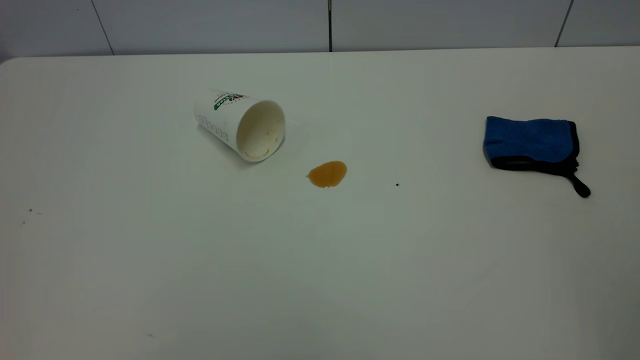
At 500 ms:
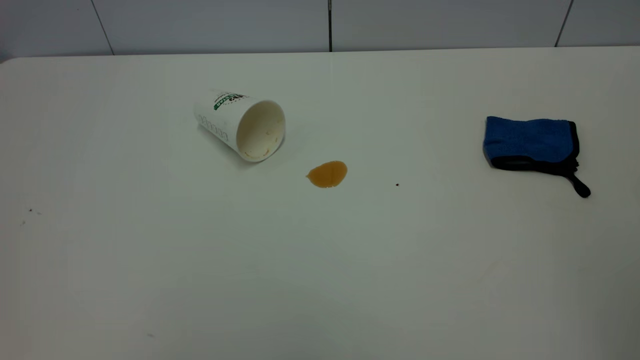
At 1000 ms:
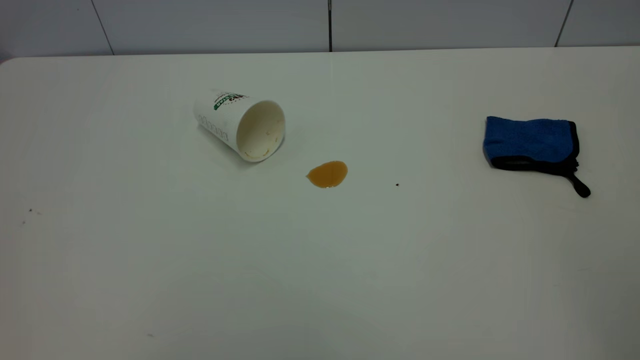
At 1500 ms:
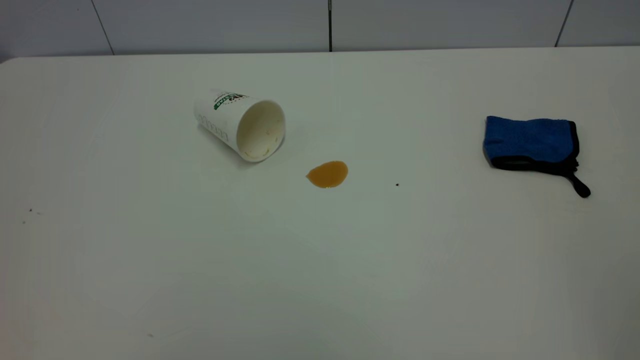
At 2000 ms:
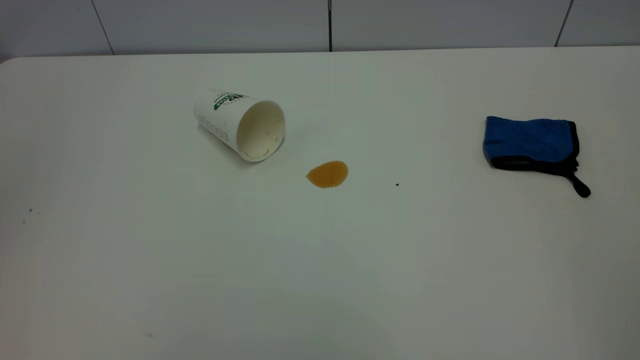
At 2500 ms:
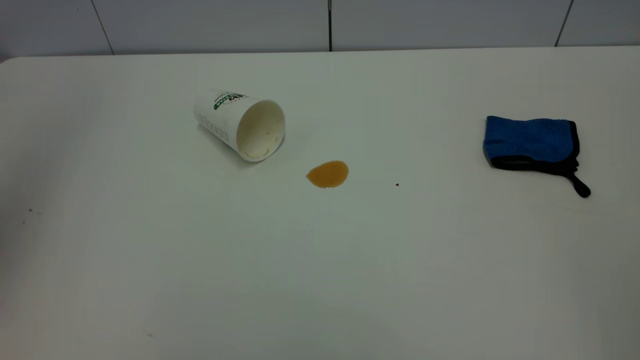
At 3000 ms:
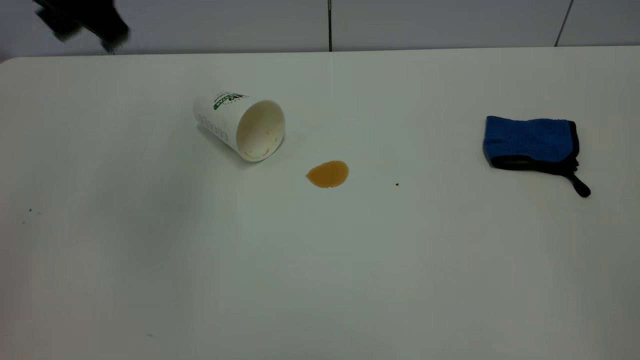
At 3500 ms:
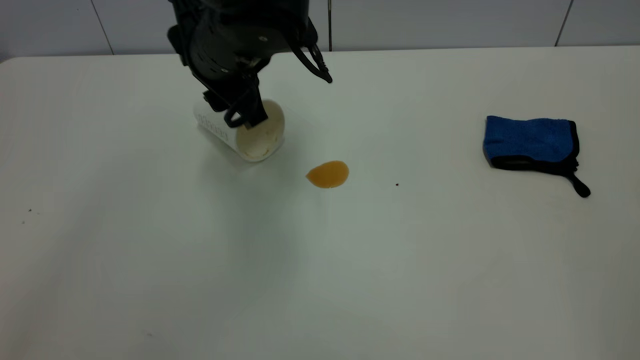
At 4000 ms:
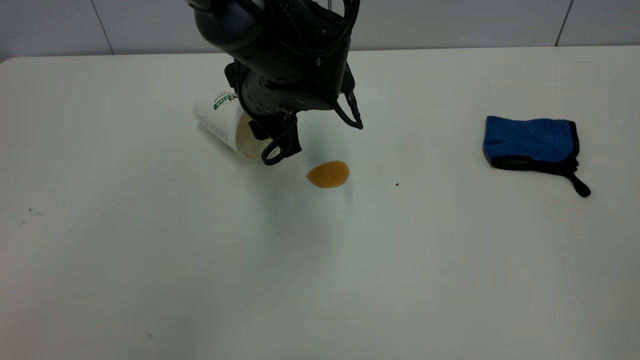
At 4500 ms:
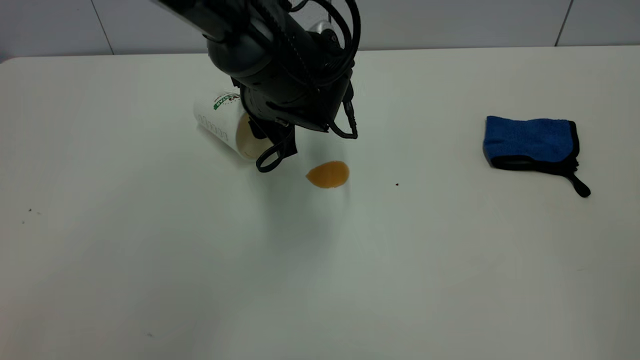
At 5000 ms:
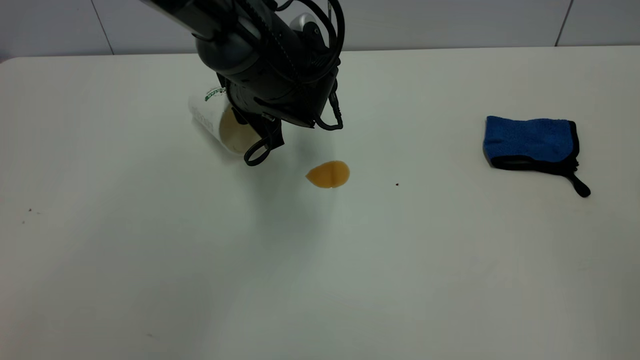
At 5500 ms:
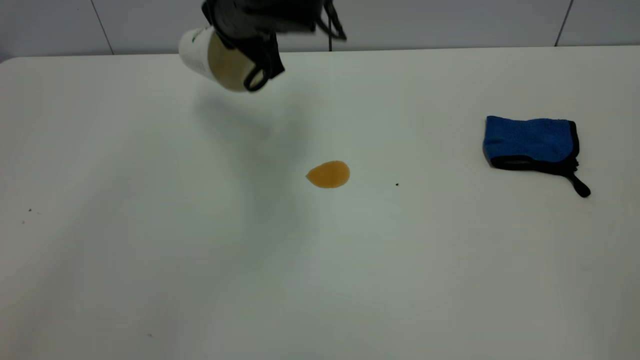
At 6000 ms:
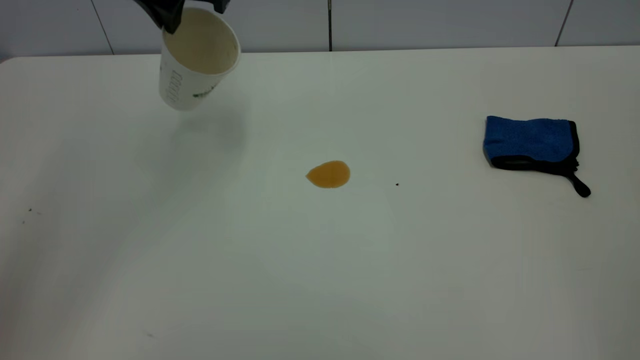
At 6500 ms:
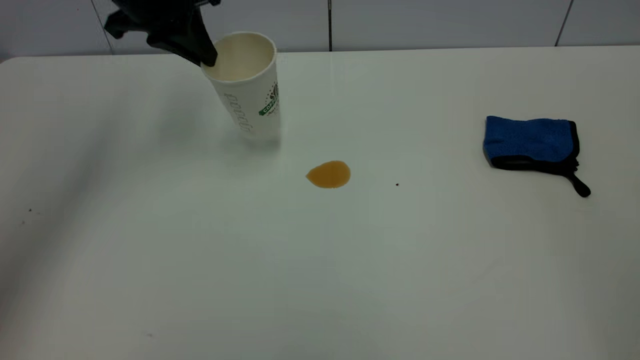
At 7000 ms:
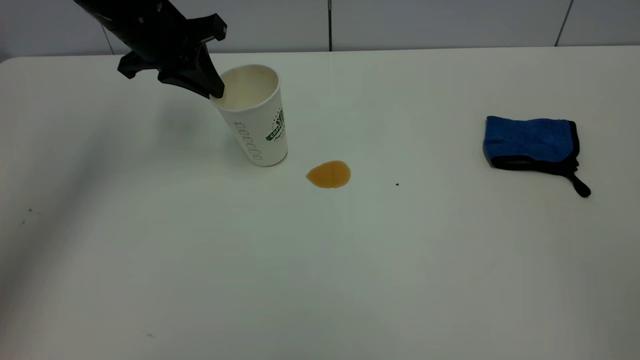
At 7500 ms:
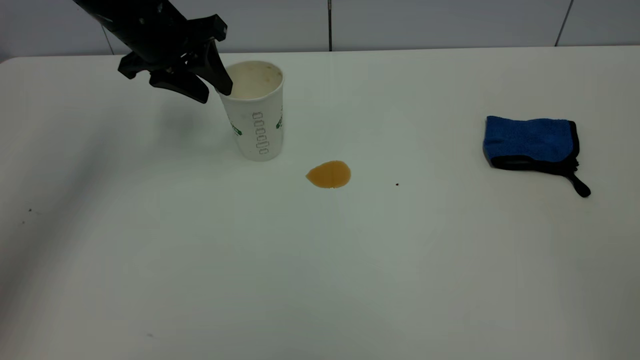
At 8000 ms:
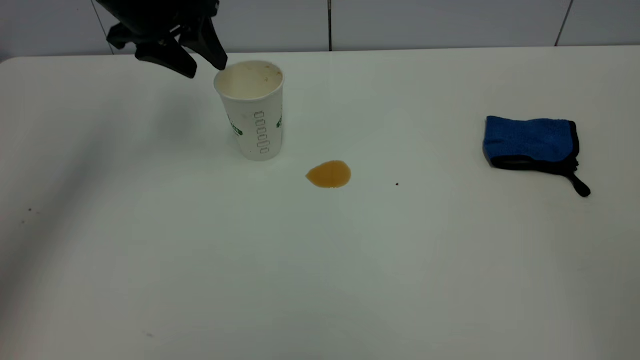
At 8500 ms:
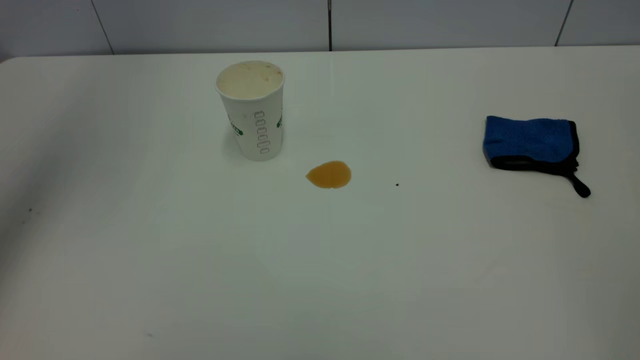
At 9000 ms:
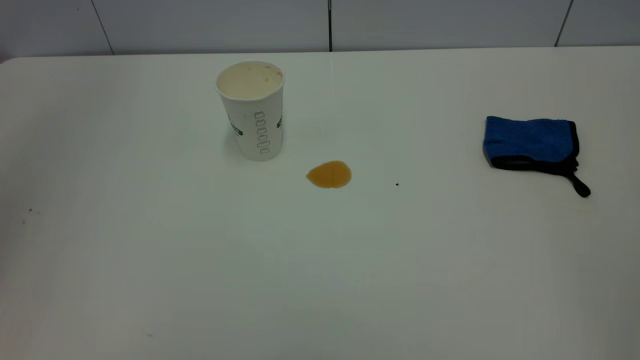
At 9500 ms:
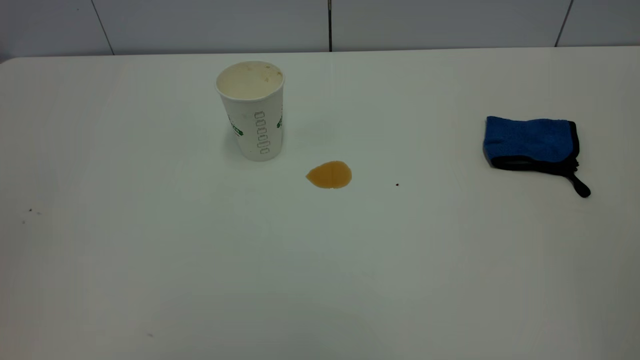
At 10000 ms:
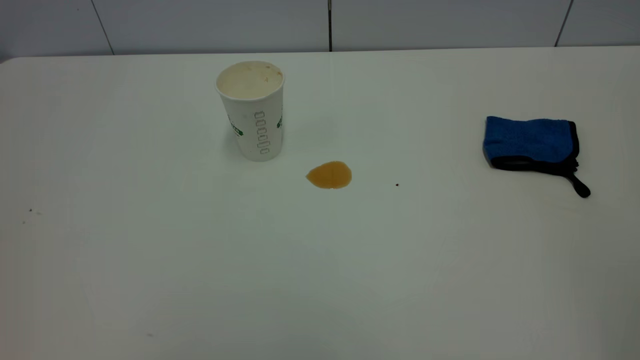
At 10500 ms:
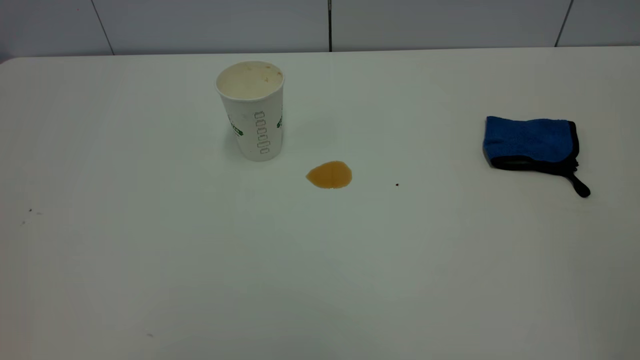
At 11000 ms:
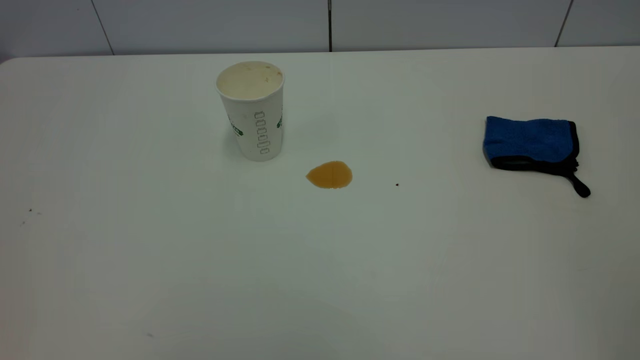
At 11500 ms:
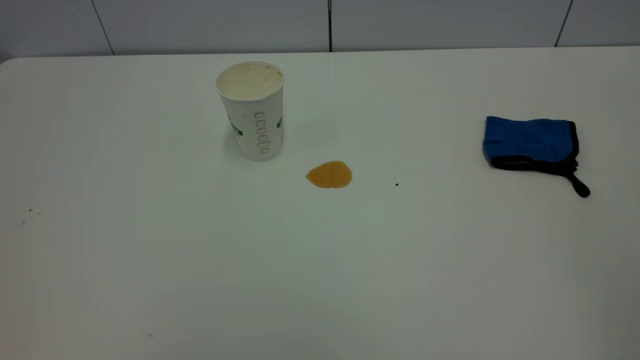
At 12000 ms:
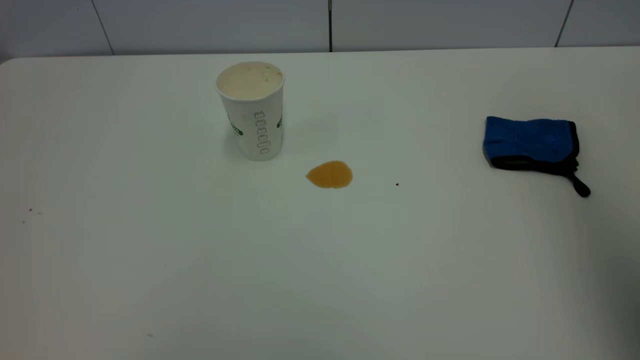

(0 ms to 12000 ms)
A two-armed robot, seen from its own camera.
Task of the whole recording: the left gripper pick up the fallen cup and place it upright, the right gripper grasp the blue rag and wipe the tea stain on the table, the right gripper put the blue rag back in its original position.
Step, 0 ms - 7500 ms: Stand the paper cup upright.
2000 ms - 4000 ms: The left gripper moves downward, to the right and forward, about 50 cm.
4000 ms - 6000 ms: The left gripper heads upward and to the left, covering about 20 cm, and closes.
6000 ms - 8000 ms: The left gripper is displaced to the left by roughly 5 cm, and opens its fingers.
8000 ms - 10000 ms: The left gripper heads backward, covering roughly 50 cm.
10000 ms - 12000 ms: The right gripper heads forward, covering roughly 20 cm.

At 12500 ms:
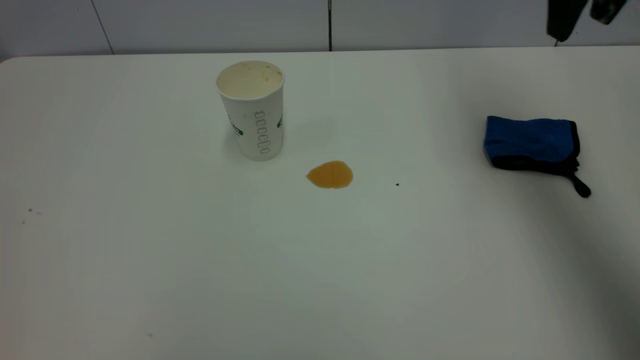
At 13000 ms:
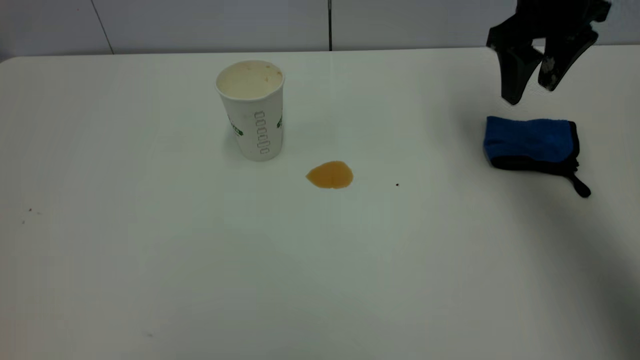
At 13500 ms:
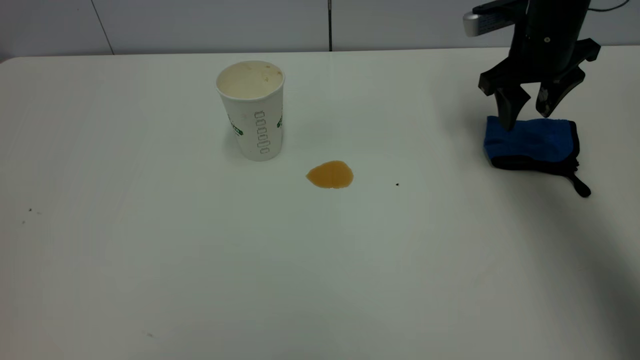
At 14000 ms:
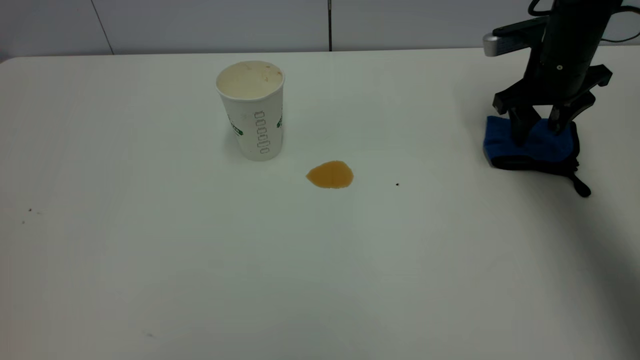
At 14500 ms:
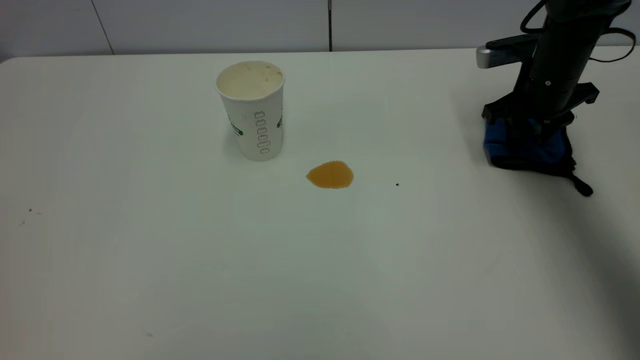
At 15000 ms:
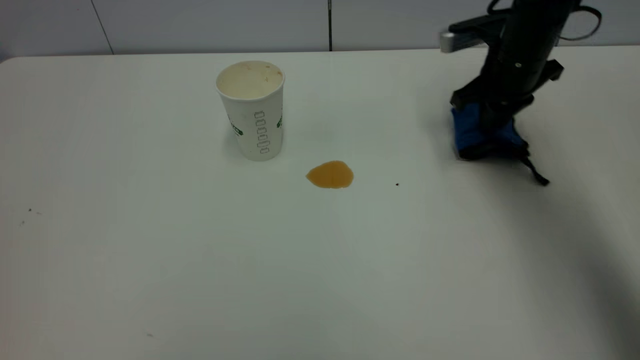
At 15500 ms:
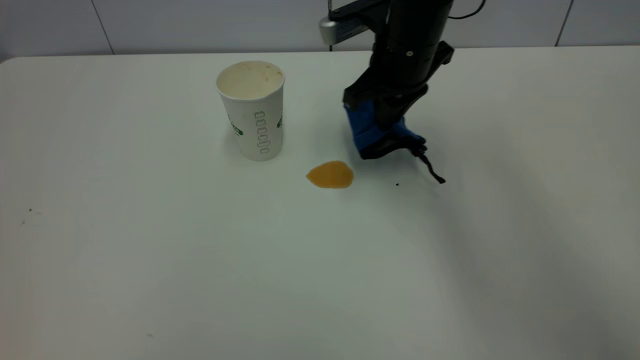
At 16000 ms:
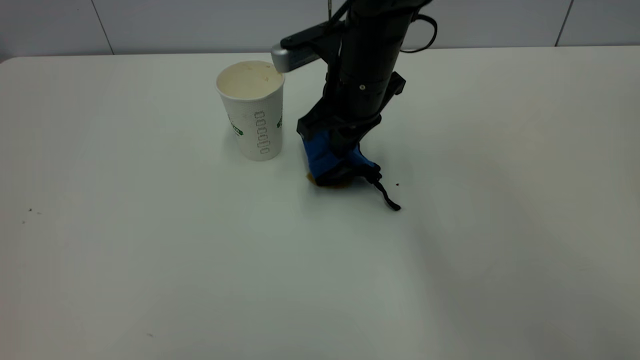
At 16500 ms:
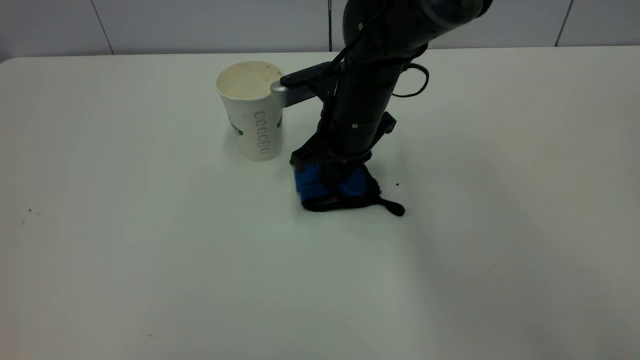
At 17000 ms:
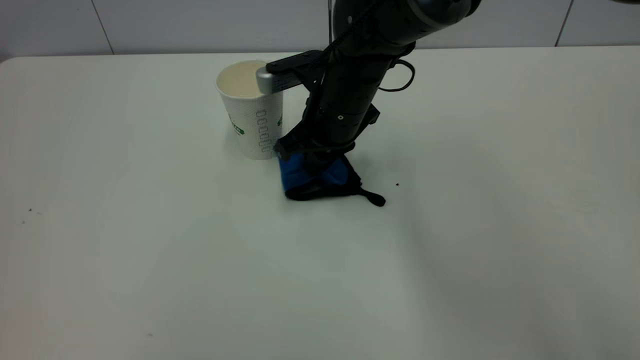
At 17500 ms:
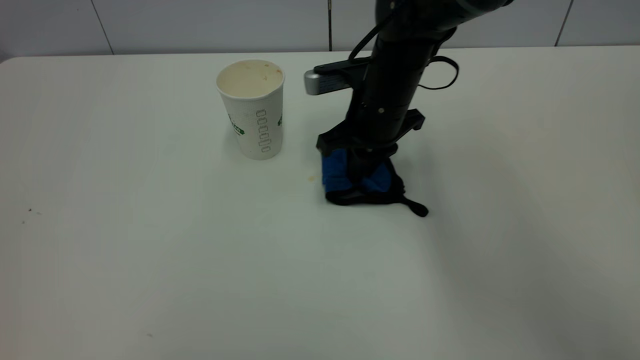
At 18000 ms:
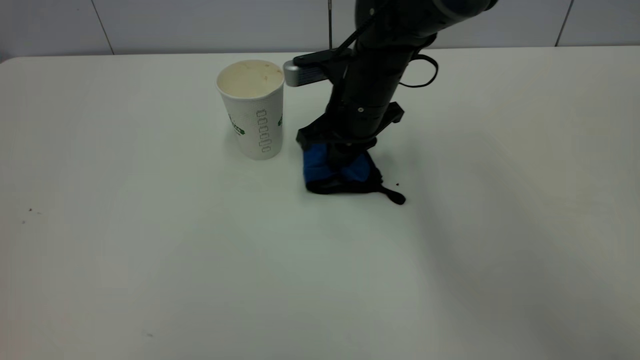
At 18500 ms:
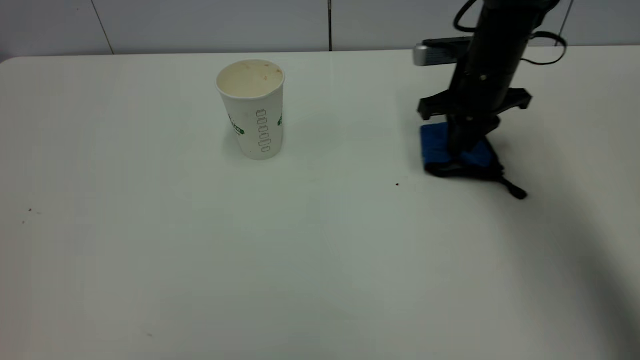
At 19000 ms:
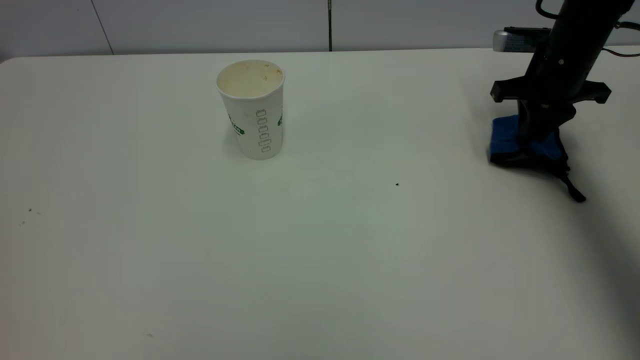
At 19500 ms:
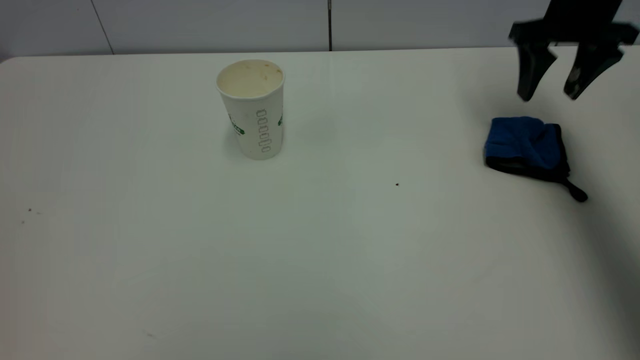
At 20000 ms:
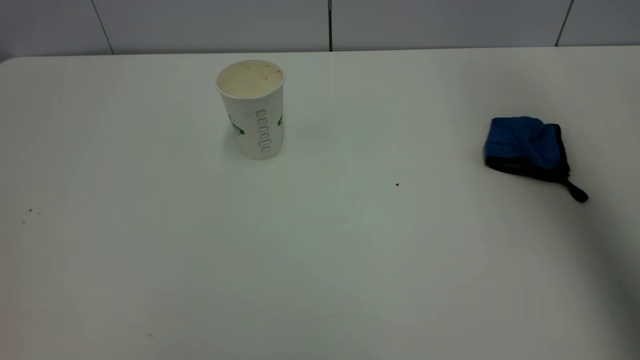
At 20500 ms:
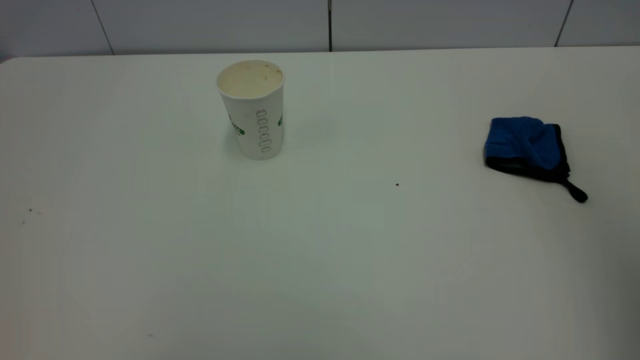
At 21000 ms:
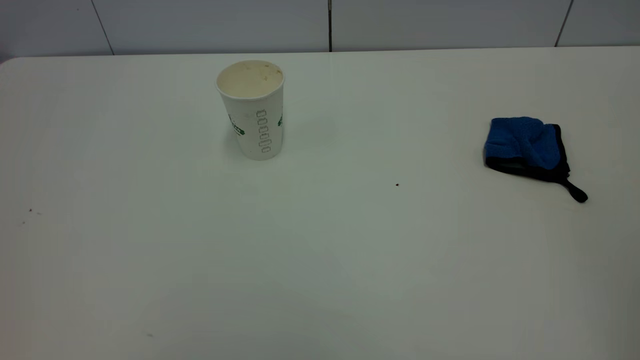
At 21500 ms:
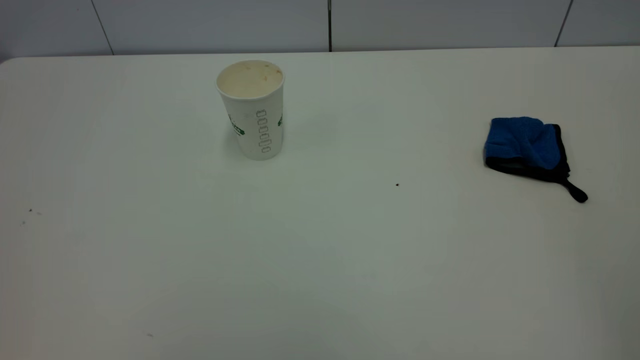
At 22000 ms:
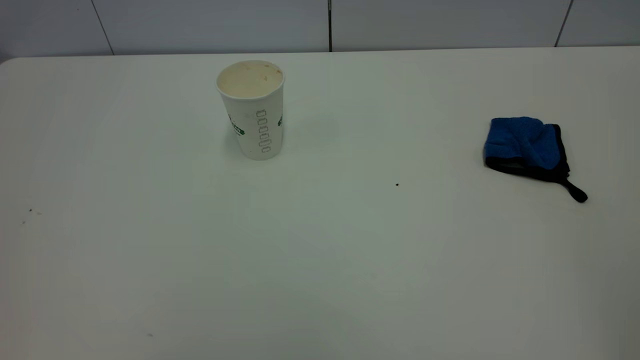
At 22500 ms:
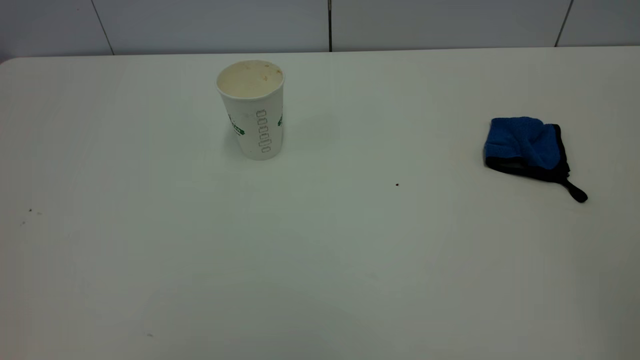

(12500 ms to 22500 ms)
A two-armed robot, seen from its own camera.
Task of the whole recording: the left gripper pick up the fallen cup and place it upright, the right gripper grasp the blue rag and wipe the tea stain on the table, the right gripper put the blue rag back in its original position.
Step, 12500 ms - 19500 ms: Wipe the stains off the table with a rag.
12500 ms - 14500 ms: The right gripper is displaced downward by approximately 20 cm, and closes its fingers.
14500 ms - 16500 ms: The right gripper heads to the left, covering about 25 cm, and closes up.
16500 ms - 18500 ms: The right gripper shifts approximately 20 cm to the right.
18500 ms - 20500 ms: The right gripper heads backward and upward, covering roughly 50 cm, and opens.
